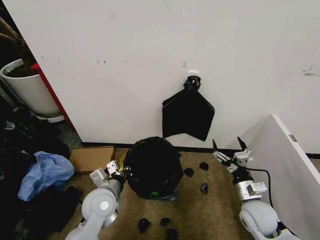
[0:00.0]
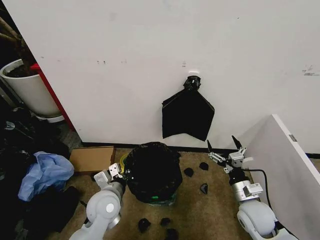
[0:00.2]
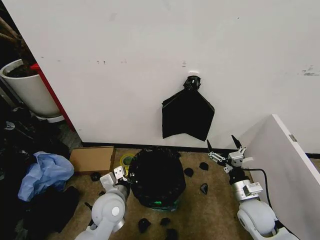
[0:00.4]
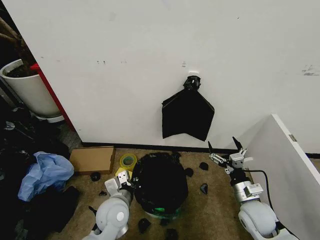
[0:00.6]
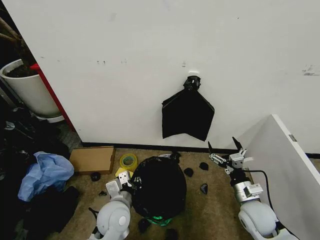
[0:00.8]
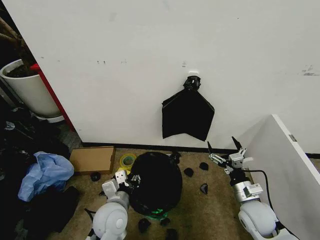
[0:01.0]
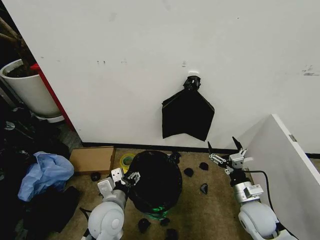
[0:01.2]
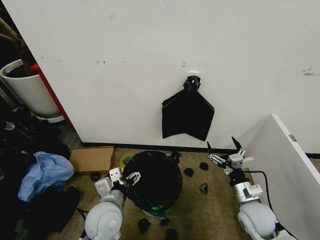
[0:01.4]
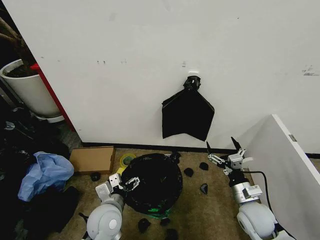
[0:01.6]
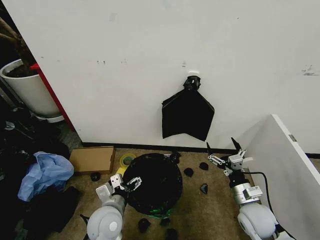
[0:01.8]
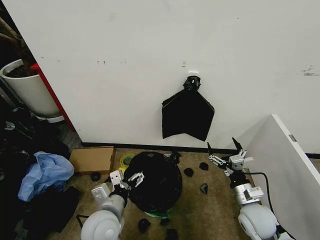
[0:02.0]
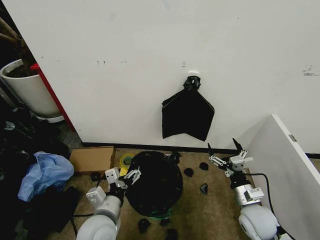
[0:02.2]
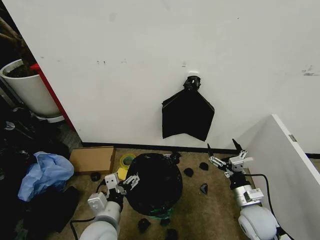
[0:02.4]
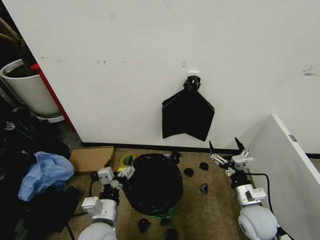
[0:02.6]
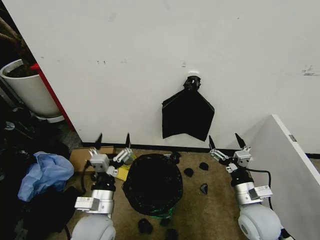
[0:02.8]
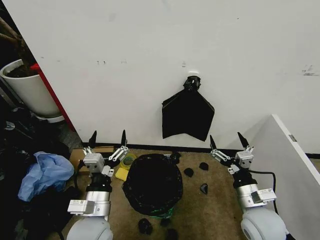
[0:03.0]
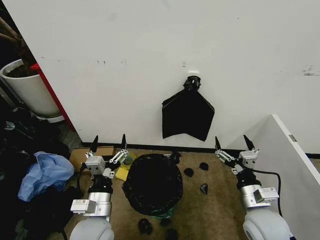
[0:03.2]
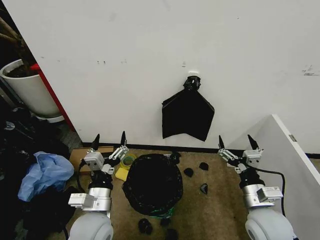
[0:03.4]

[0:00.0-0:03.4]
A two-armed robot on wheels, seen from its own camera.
Task of the whole recording: Place the garbage bag over the trash bin.
0:00.0 to 0:01.6: The left gripper moves roughly 5 cm, and opens its fingers.
0:01.6 to 0:03.4: Both grippers travel together upward, about 5 cm.

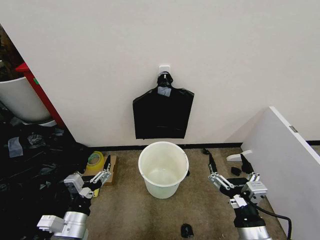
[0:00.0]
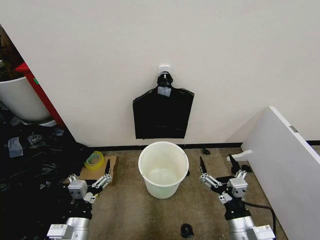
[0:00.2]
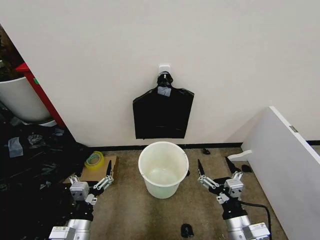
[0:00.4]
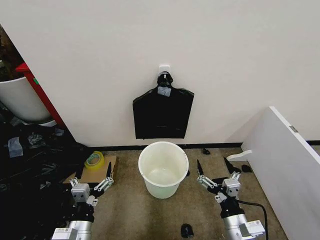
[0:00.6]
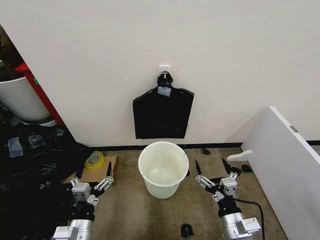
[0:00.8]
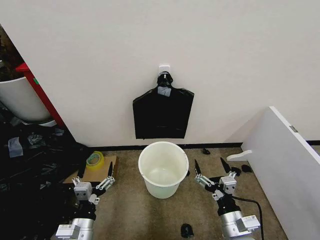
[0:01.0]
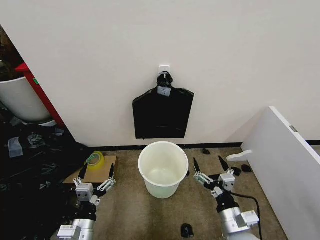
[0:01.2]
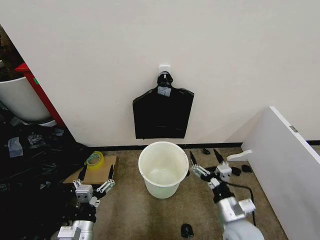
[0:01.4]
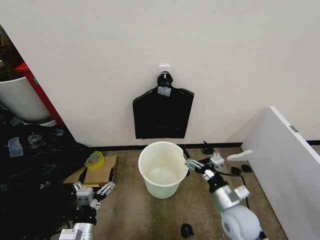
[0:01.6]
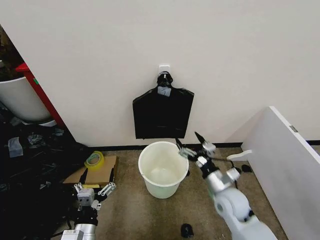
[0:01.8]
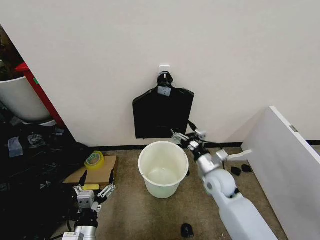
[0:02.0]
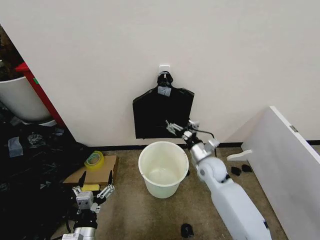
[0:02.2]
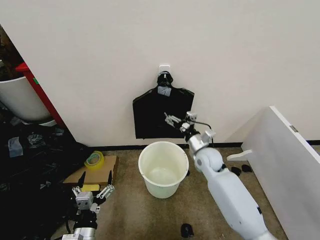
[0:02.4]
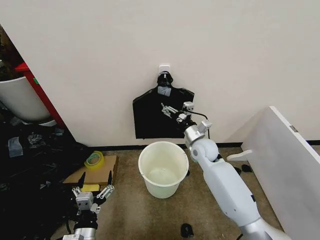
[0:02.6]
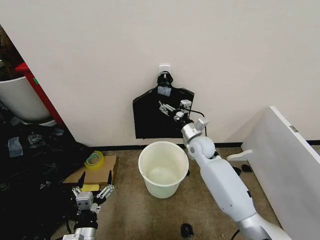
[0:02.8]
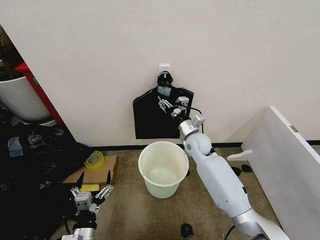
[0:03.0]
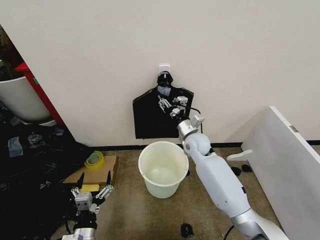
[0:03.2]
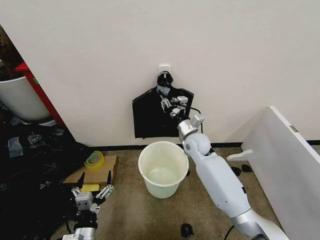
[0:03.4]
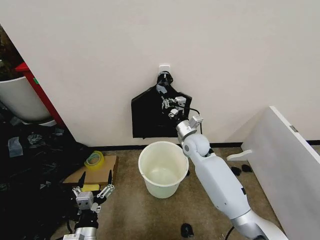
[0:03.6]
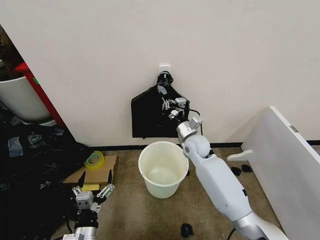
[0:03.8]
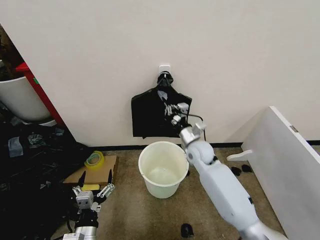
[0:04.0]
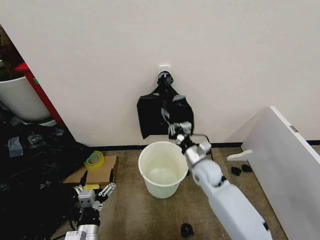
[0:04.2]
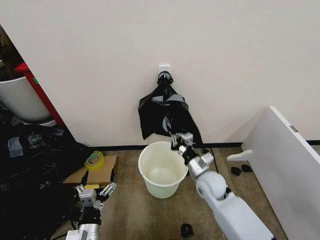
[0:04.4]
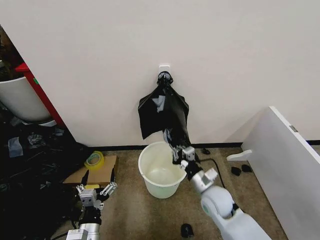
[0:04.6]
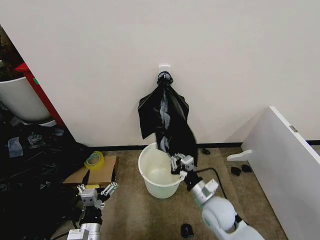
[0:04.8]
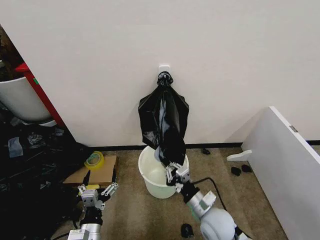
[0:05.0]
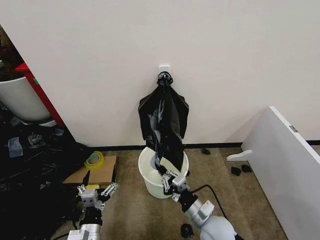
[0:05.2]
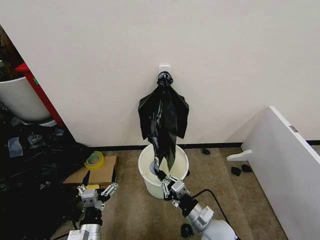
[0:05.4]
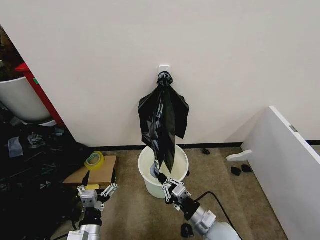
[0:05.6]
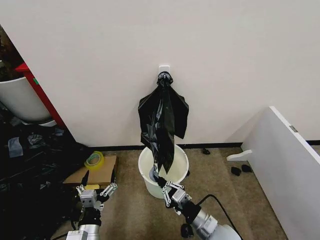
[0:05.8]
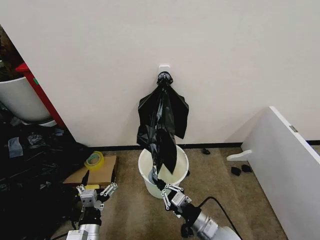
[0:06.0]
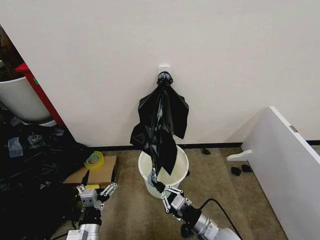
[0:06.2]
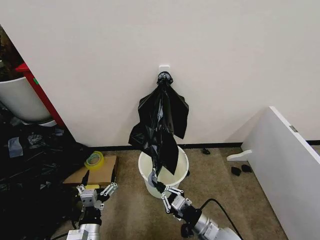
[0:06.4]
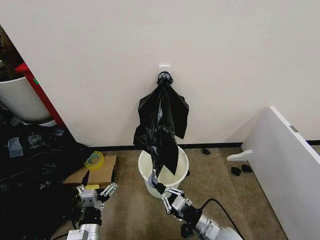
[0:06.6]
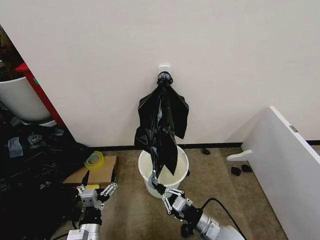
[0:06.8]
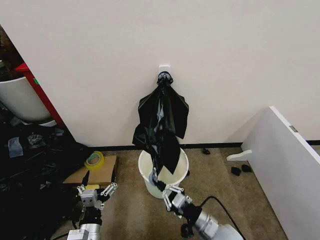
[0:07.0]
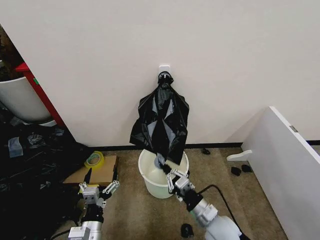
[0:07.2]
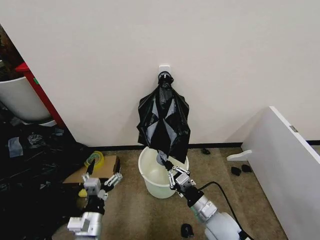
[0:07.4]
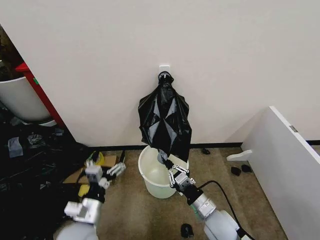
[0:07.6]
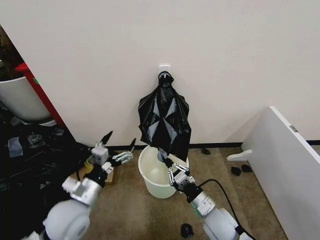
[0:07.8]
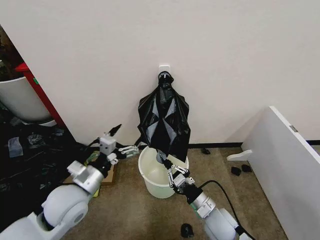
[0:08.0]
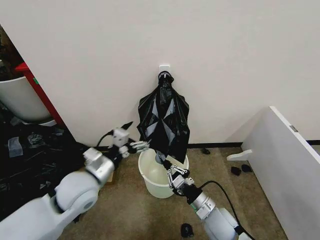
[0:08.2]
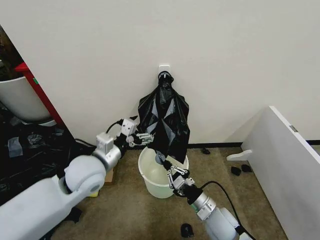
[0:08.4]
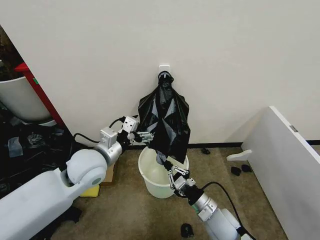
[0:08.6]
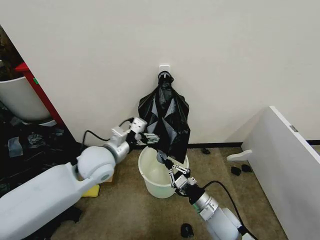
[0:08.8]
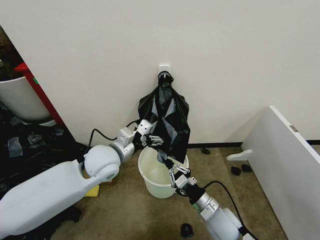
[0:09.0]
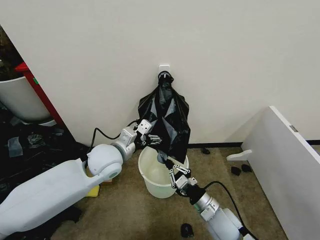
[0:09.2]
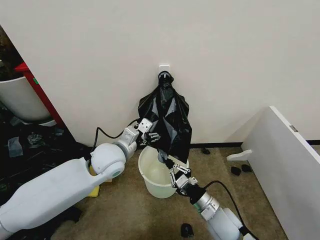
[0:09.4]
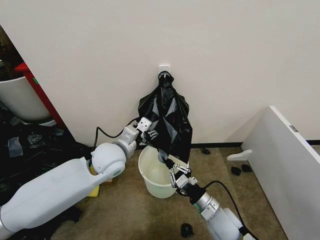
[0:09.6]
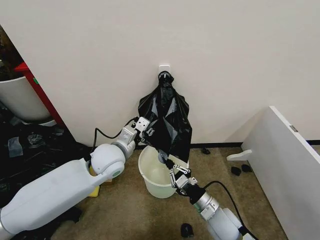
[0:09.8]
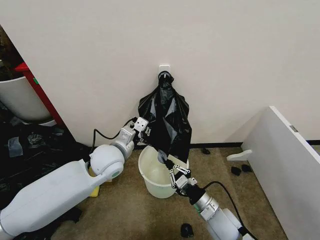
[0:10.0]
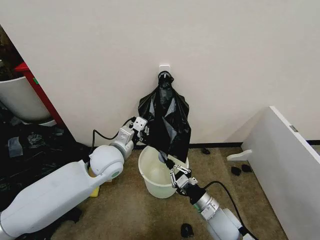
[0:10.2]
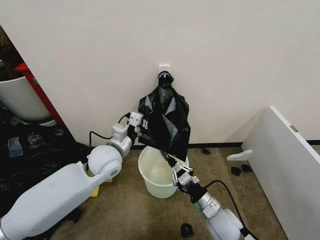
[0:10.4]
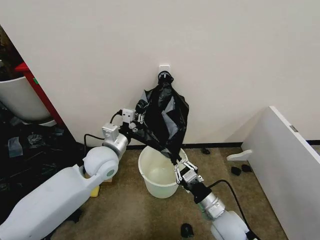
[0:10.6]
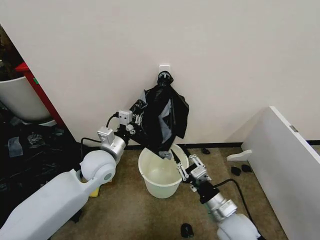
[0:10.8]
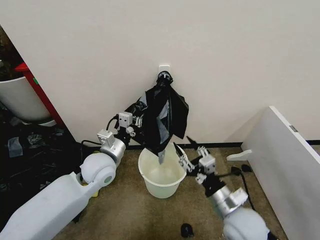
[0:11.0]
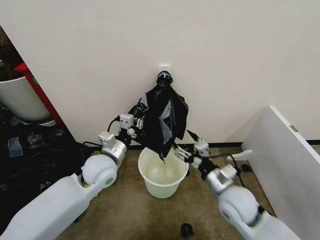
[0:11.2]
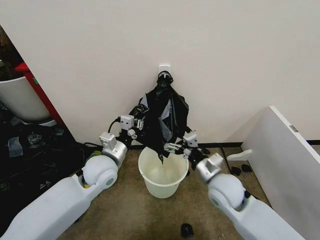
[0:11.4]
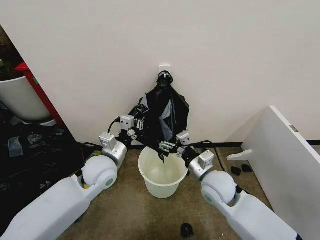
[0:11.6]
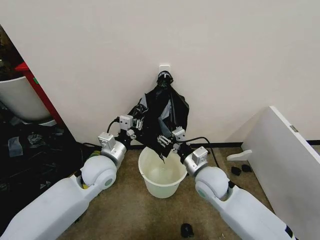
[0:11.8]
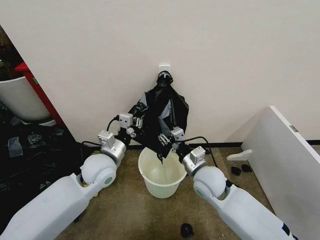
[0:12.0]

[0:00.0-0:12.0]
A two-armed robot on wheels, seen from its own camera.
Task of the whole recording: Place the garbage bag over the trash bin.
0:01.6 to 0:03.0: The right gripper shifts approximately 25 cm forward.
0:03.0 to 0:04.4: The right gripper moves backward and downward, some 15 cm, and closes.
0:04.4 to 0:06.0: The right gripper shifts approximately 15 cm backward.
0:06.0 to 0:07.6: The left gripper shifts by about 5 cm.
0:07.6 to 0:09.0: The left gripper goes approximately 25 cm forward and upward.
0:09.0 to 0:10.4: The left gripper closes up.
0:10.4 to 0:12.0: The right gripper shifts some 15 cm forward and upward, and opens its fingers.

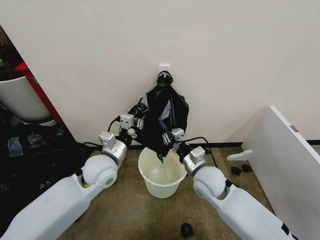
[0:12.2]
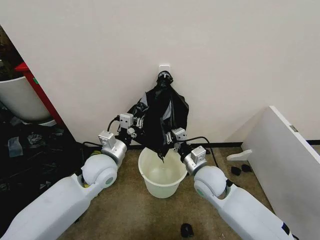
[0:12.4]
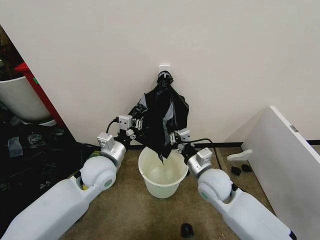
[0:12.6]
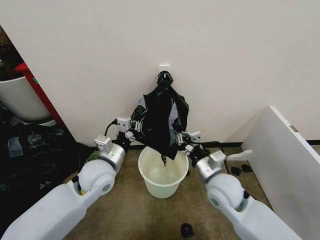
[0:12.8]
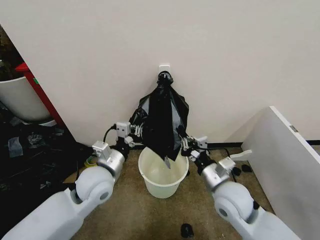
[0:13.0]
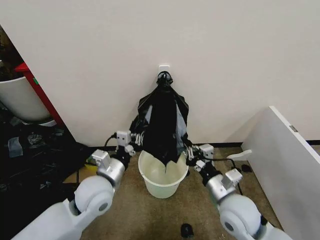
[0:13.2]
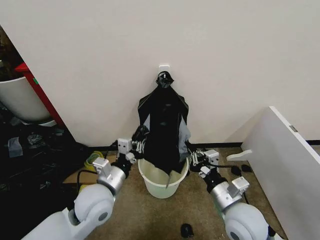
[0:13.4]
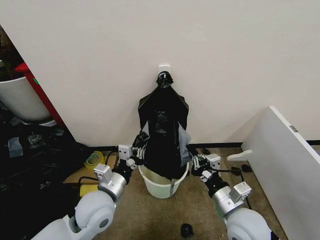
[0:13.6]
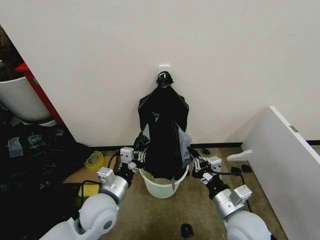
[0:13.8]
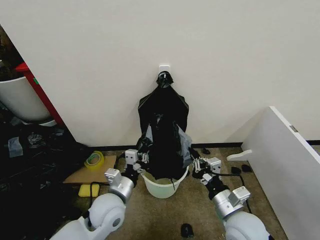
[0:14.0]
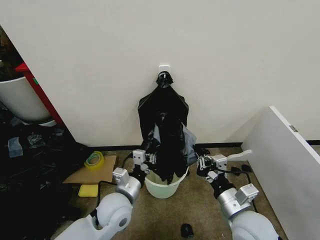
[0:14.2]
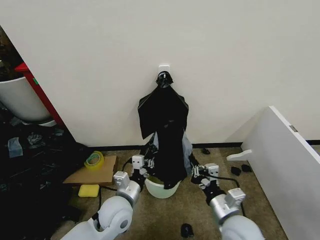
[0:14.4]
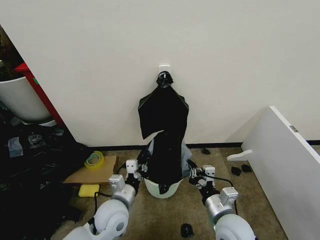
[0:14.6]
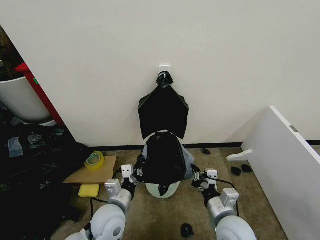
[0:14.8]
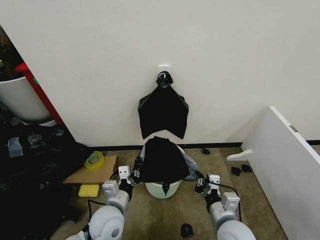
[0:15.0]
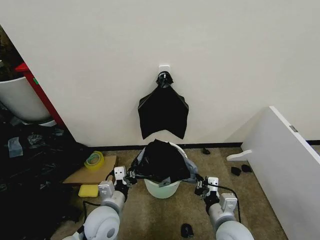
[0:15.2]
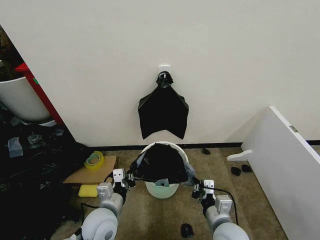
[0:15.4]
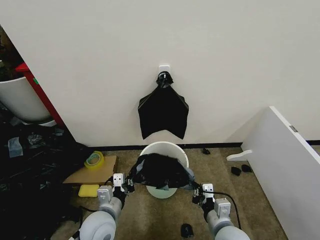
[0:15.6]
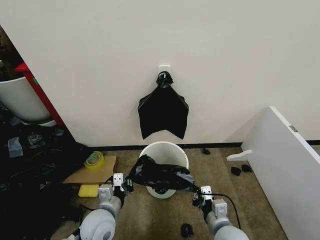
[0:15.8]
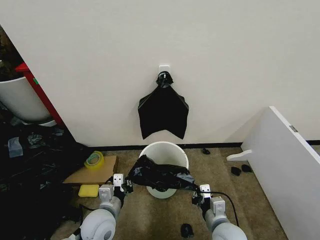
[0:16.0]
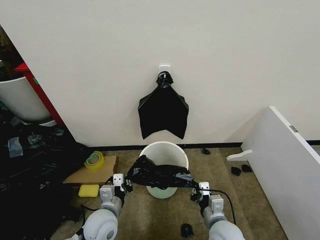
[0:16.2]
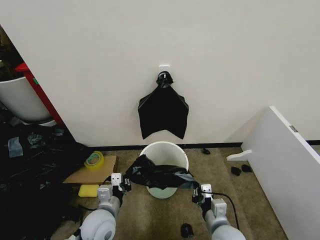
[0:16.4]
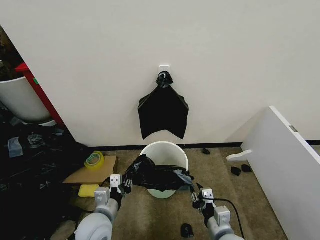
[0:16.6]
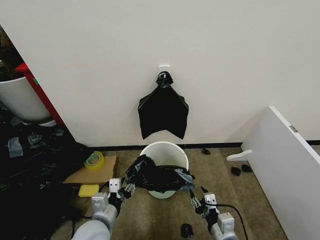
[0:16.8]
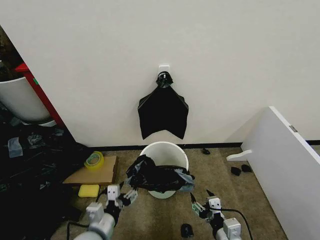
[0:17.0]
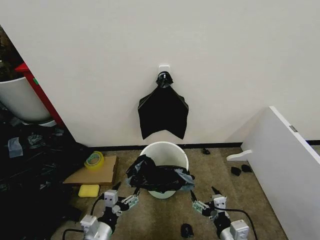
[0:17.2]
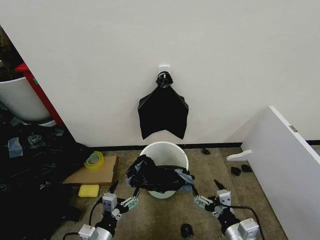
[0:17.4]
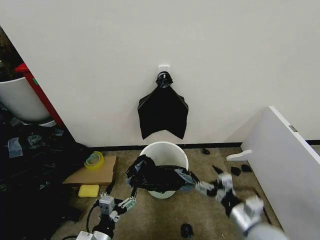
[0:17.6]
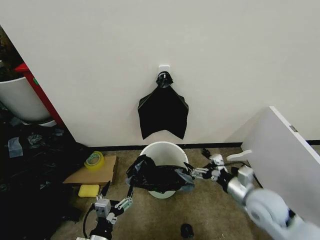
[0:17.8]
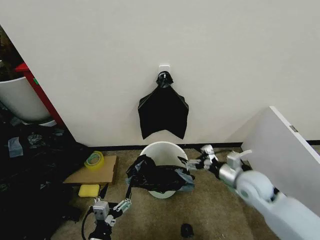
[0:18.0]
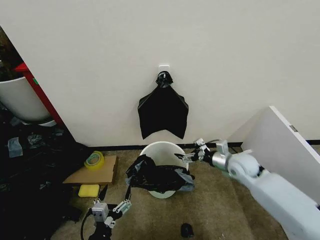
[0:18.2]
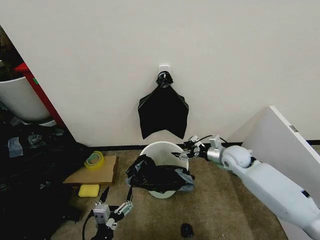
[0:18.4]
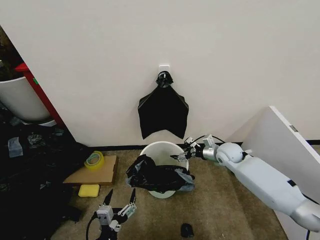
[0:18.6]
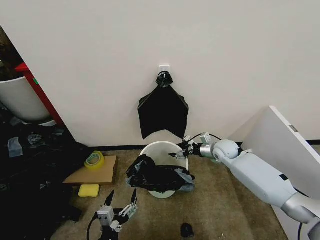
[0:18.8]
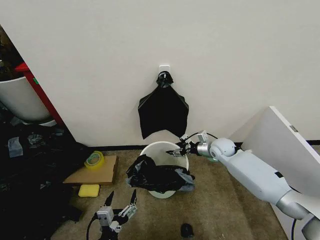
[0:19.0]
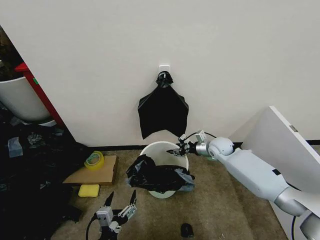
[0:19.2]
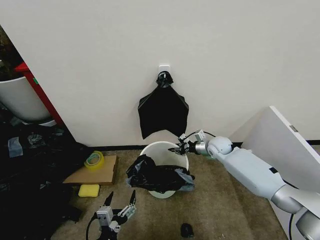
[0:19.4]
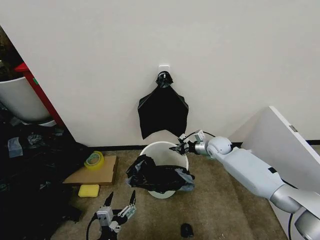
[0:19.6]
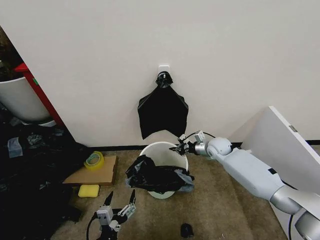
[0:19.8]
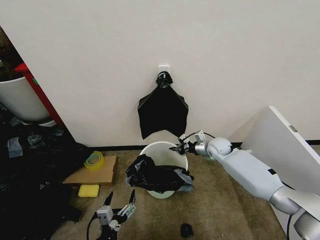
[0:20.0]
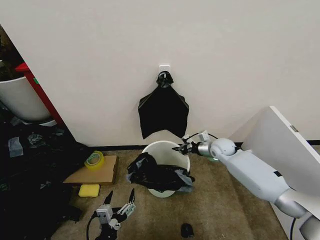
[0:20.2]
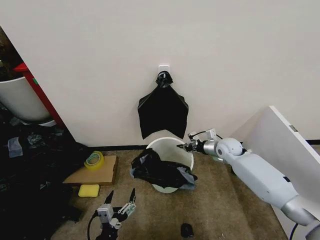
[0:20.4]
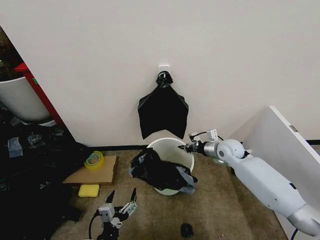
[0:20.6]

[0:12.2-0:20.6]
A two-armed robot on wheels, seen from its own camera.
Task of the whole recording: Place the garbage bag over the trash bin.
0:12.2 to 0:13.6: The right gripper heads backward and to the right, covering some 15 cm; the left gripper is displaced backward by approximately 10 cm.
0:13.6 to 0:15.0: Both grippers travel together downward, roughly 5 cm.
0:15.0 to 0:16.4: The grippers make only small movements.
0:16.4 to 0:17.8: The right gripper is displaced to the right, upward and forward by about 15 cm, and opens its fingers. The left gripper goes about 10 cm backward, and opens up.
0:17.8 to 0:19.2: The right gripper travels forward by approximately 25 cm, and closes up.
0:19.2 to 0:20.6: The right gripper closes its fingers.
